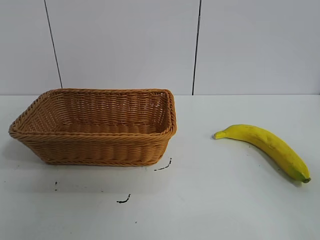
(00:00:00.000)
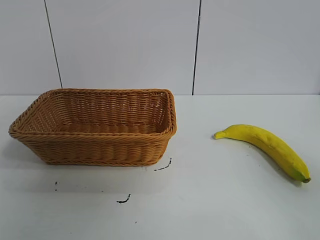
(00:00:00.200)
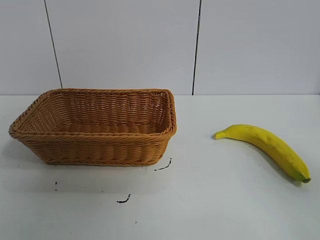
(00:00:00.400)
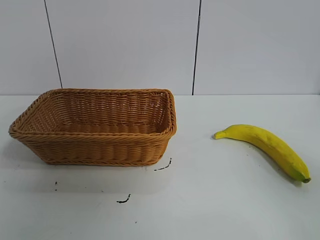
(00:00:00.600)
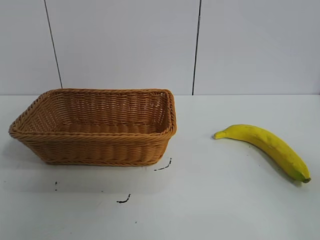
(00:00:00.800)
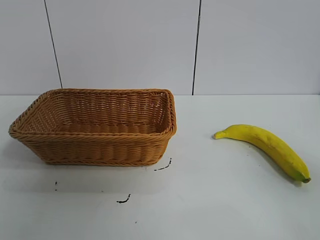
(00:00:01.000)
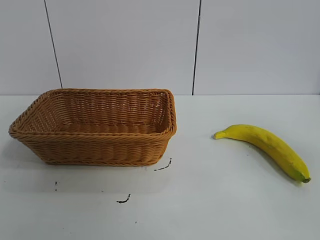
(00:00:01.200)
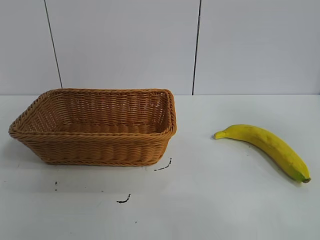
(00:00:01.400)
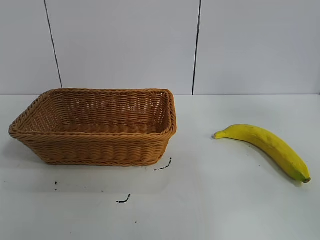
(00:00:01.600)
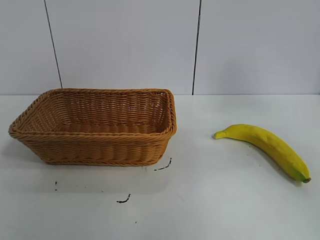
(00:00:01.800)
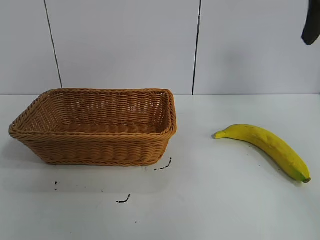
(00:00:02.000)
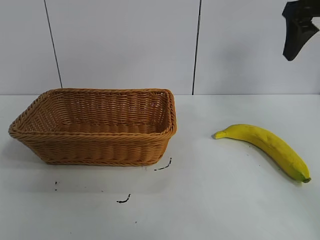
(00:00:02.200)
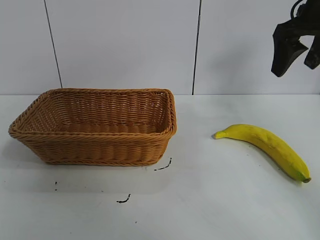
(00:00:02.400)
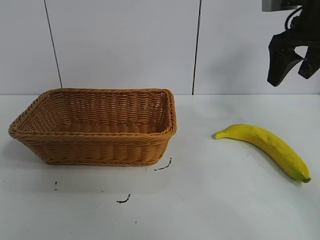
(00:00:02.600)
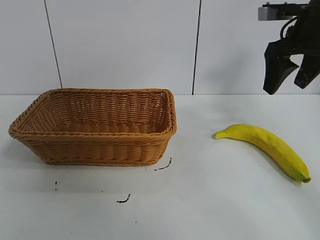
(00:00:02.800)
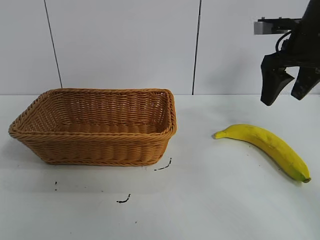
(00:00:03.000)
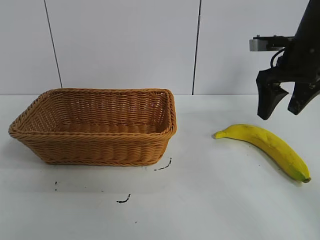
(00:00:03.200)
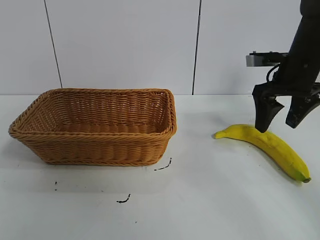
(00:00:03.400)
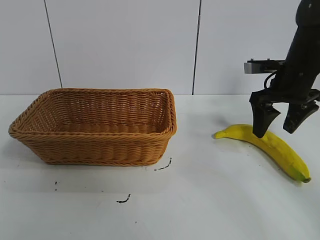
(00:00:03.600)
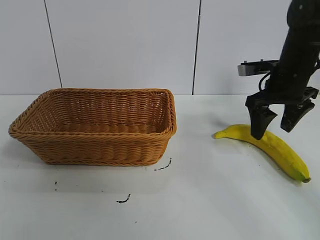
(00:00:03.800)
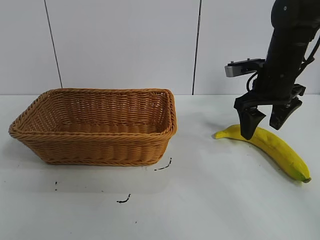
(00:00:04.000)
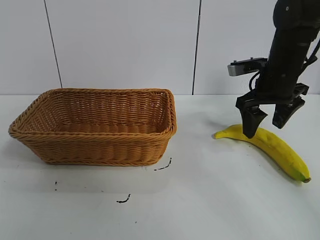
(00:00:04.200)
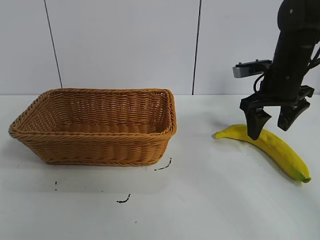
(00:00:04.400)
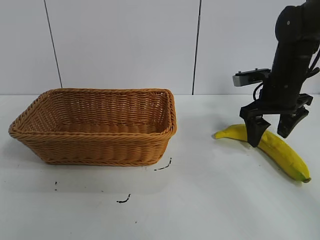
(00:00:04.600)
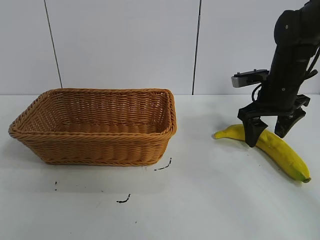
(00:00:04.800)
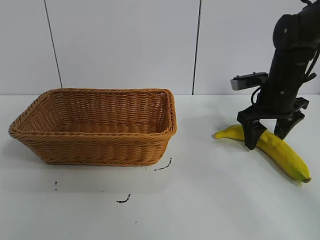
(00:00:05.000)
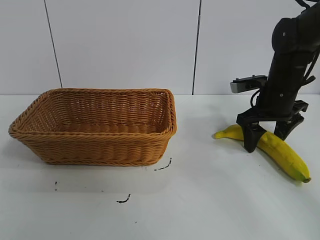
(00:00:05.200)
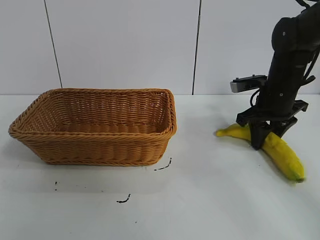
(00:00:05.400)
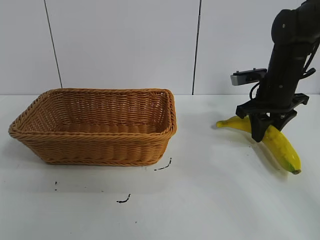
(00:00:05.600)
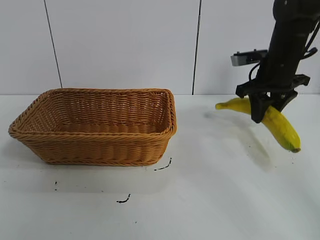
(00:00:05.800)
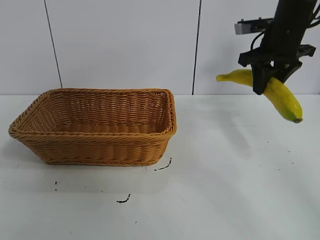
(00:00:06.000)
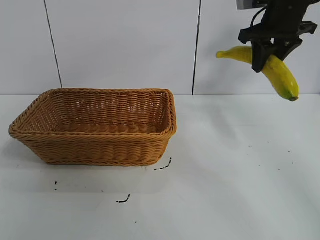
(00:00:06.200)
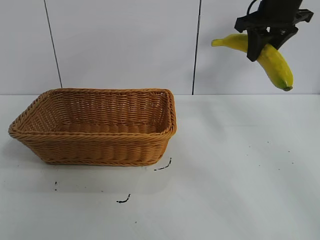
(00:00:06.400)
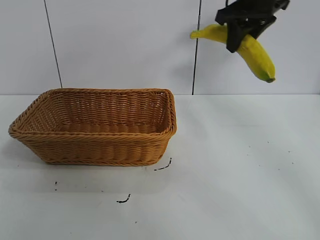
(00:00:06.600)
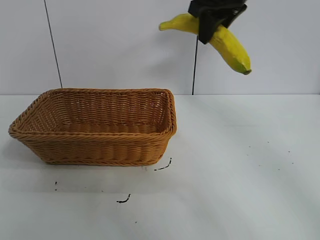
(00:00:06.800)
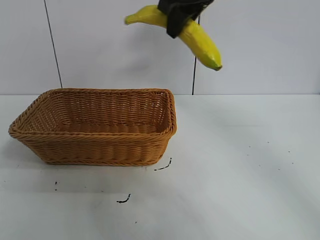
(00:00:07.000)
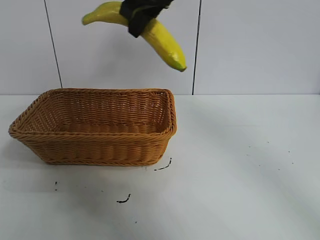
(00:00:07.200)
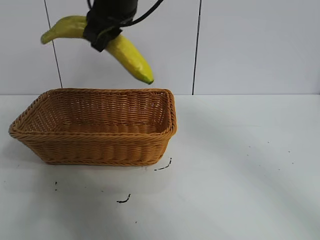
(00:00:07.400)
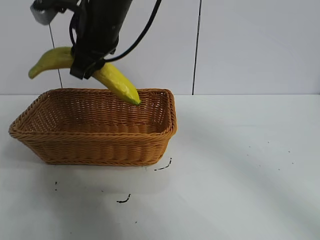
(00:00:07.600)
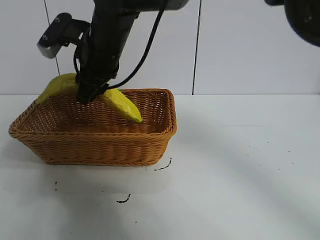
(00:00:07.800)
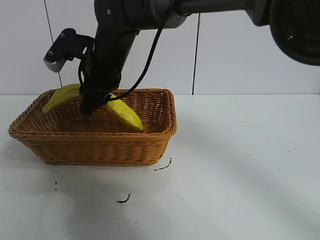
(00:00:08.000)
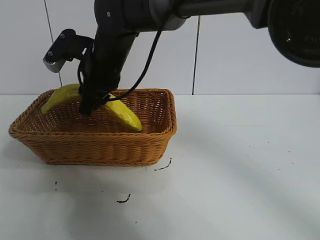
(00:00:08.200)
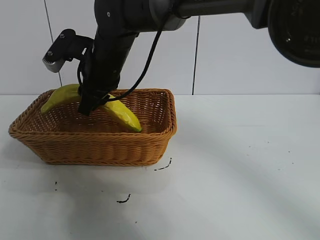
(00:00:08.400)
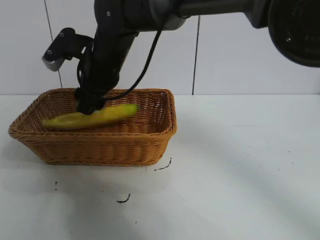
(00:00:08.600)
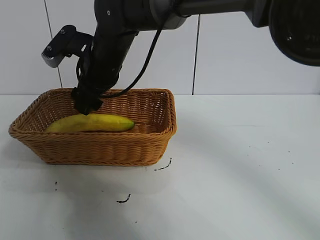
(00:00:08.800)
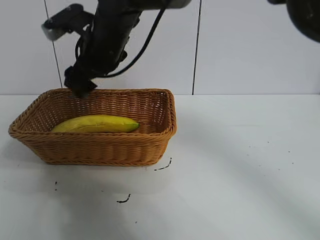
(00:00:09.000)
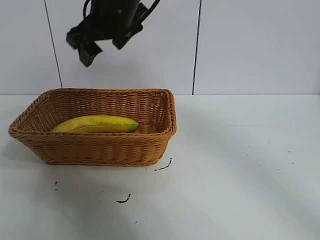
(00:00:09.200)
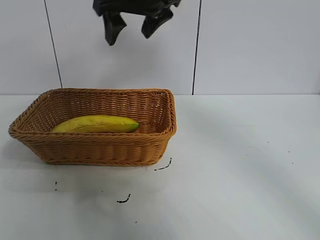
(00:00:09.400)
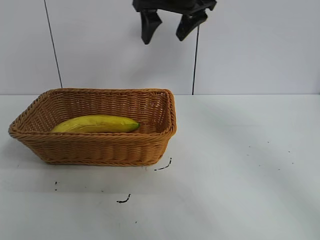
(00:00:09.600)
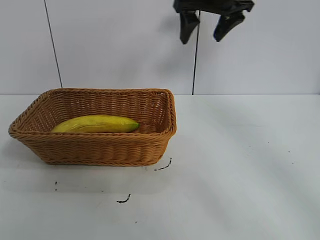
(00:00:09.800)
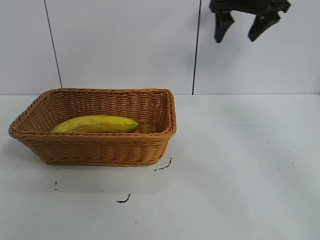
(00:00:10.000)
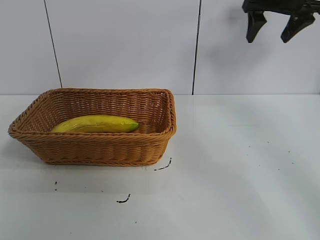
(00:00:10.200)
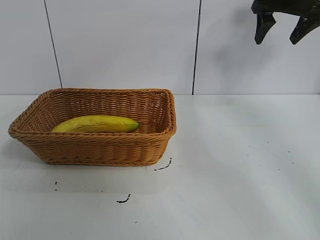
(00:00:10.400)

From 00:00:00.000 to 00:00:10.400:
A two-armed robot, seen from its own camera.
Task of the whole recording: pick up the banana and put it into the basket.
Step, from 00:00:00.800 to 00:00:05.400: Grasp the banana with right gripper.
Step, from 00:00:05.600 to 00:00:08.800: Place the banana in the basket with right gripper.
